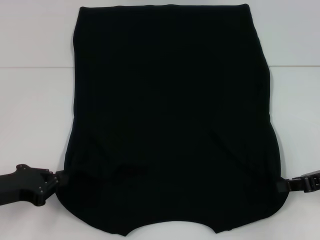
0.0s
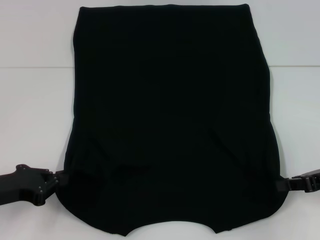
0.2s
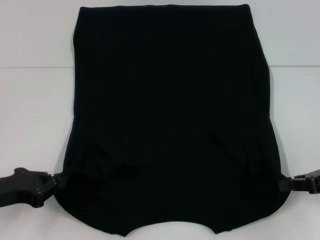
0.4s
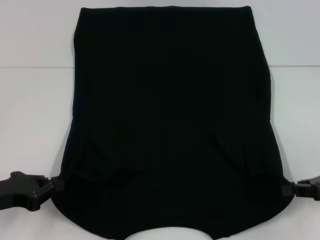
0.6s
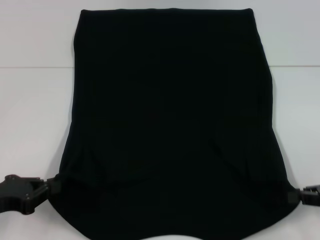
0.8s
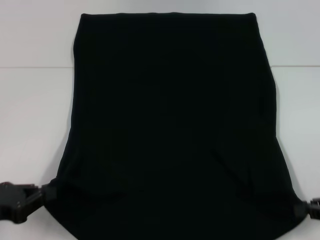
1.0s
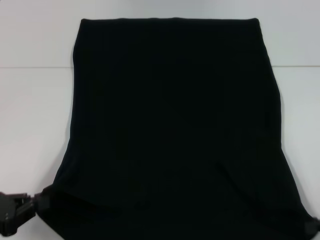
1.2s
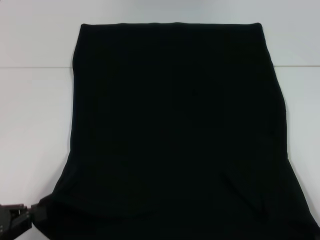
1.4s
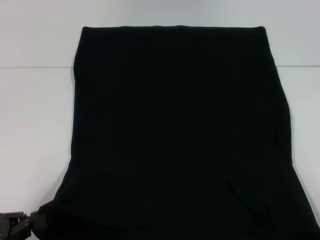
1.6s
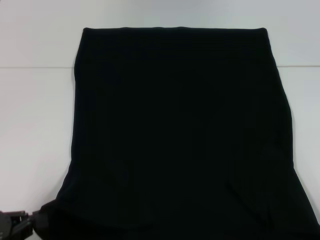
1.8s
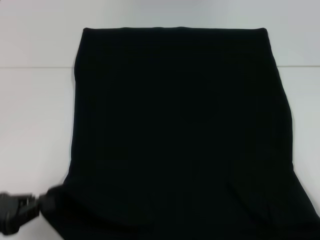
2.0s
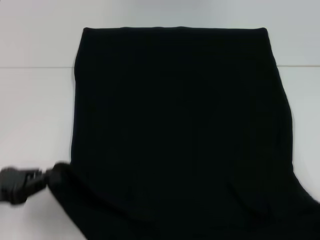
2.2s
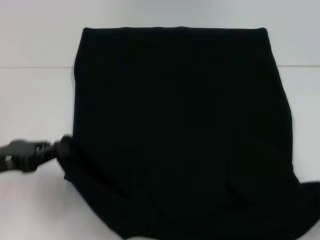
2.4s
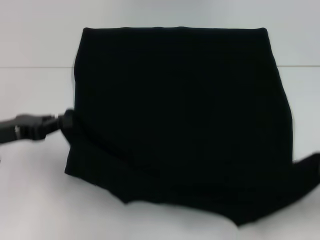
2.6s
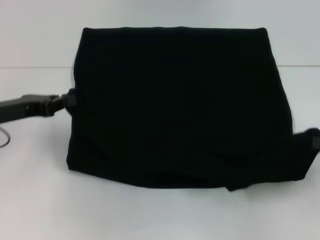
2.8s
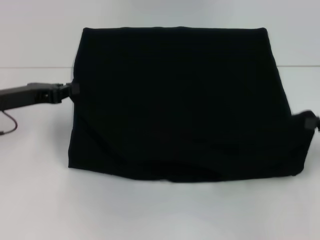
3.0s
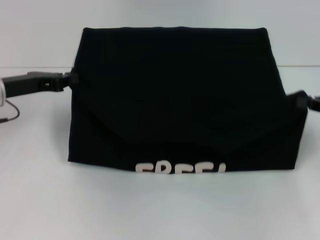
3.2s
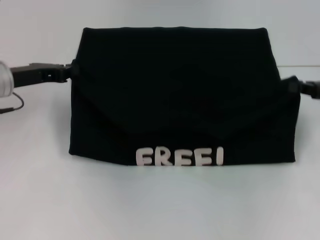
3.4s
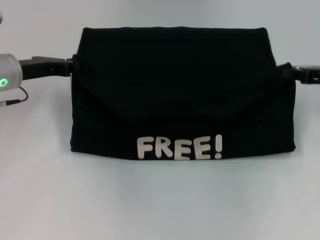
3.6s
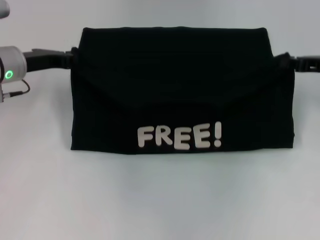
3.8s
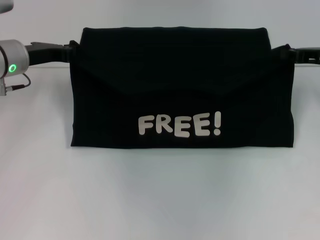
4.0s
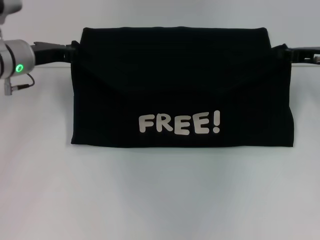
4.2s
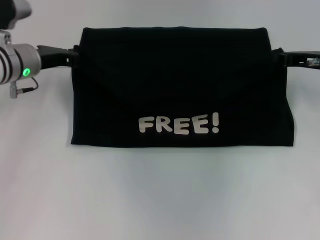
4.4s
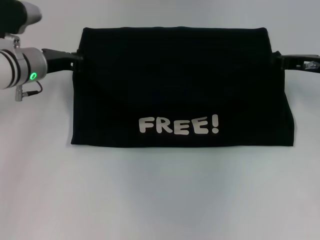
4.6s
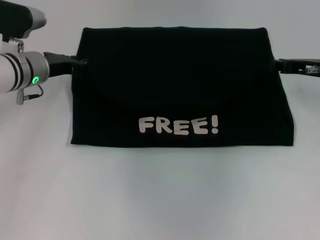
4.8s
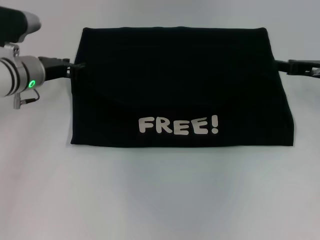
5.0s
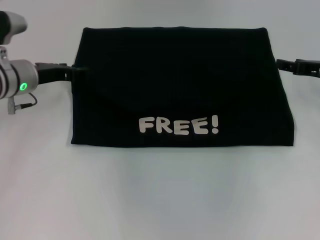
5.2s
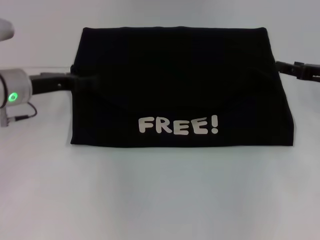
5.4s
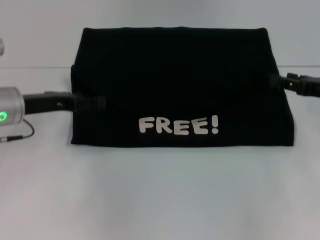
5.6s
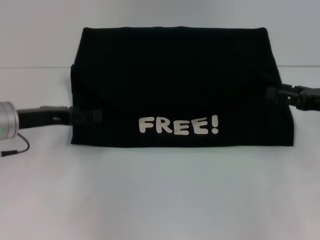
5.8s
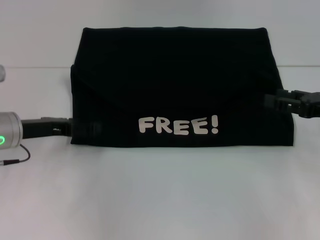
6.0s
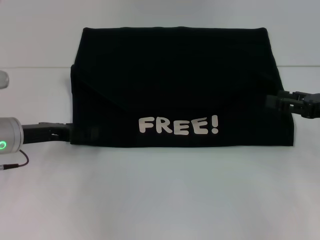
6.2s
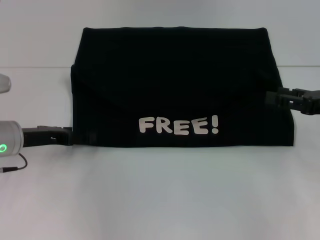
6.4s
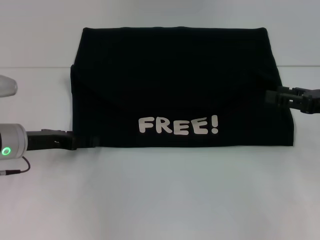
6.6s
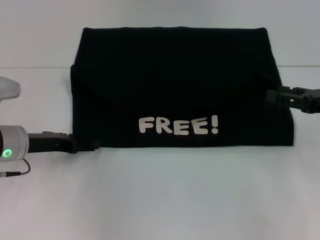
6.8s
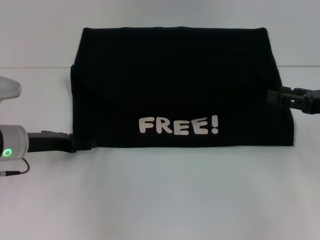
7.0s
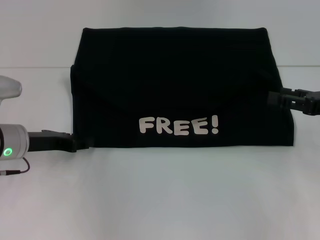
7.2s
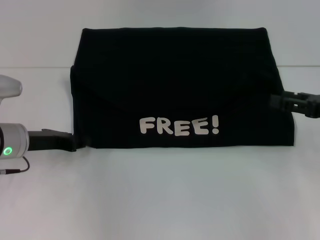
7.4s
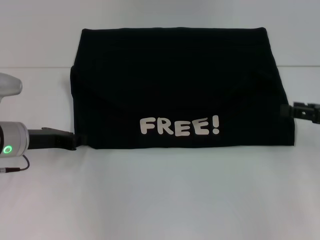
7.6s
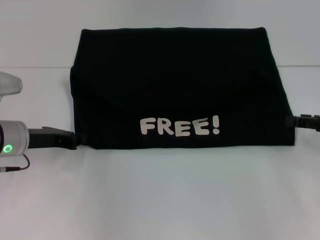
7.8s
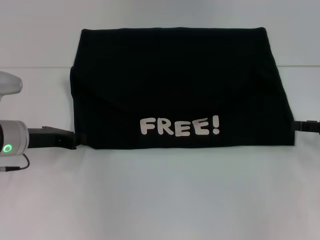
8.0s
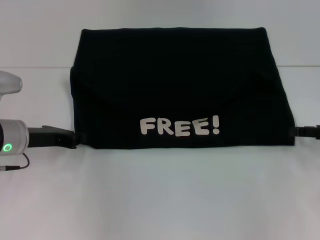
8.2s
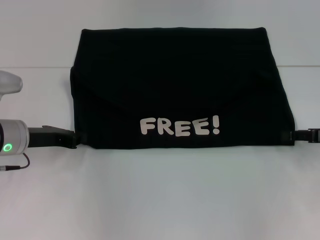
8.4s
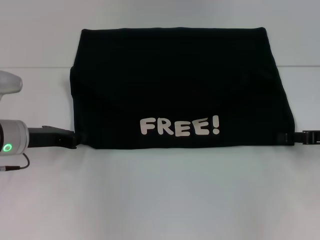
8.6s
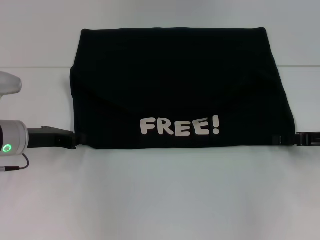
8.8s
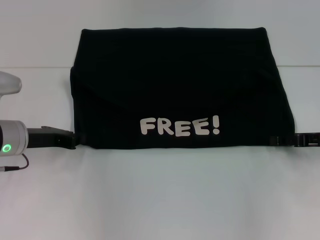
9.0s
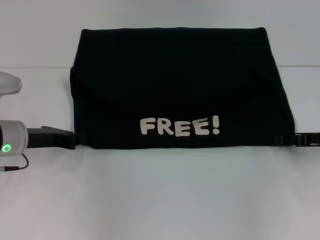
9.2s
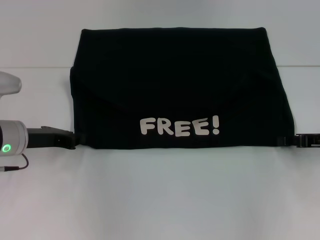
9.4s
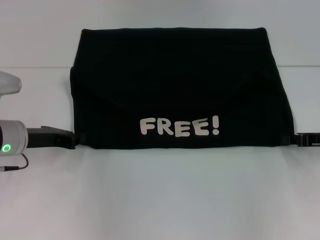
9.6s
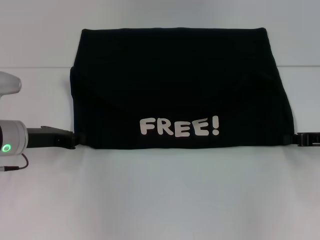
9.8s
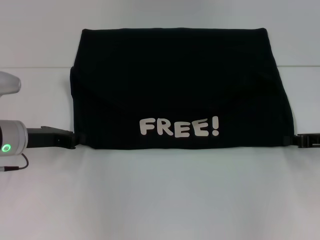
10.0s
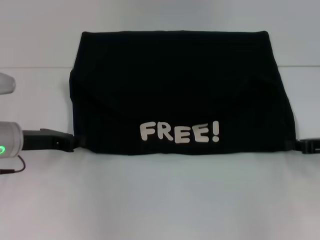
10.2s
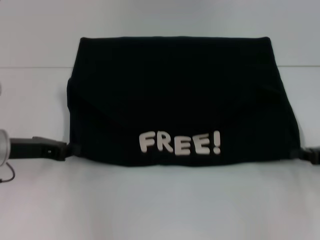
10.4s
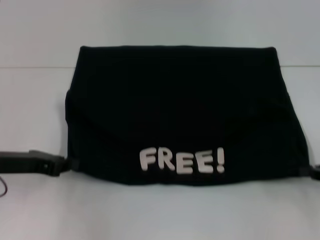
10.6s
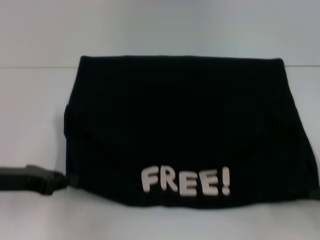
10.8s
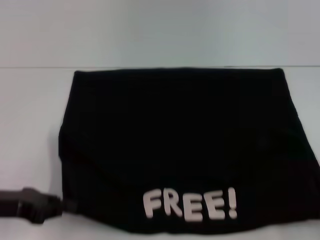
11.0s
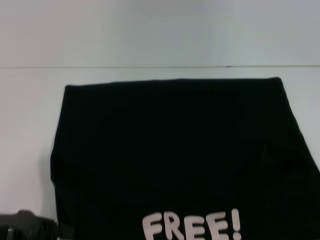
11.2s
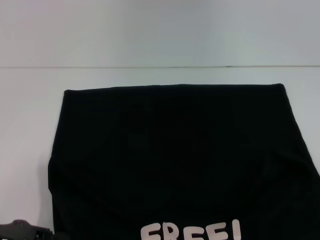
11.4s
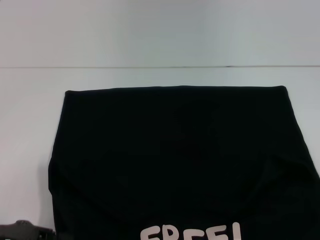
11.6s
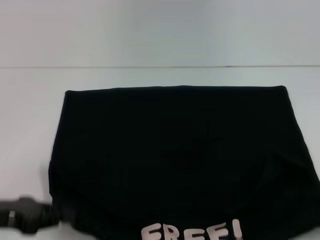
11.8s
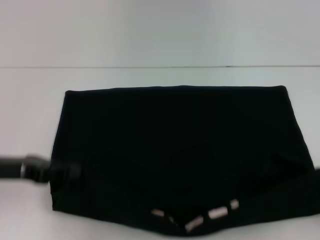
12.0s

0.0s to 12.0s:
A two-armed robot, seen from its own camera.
Step, 0.0s to 5.6s: Fold the clothes with your left hand.
Step, 0.0s to 5.6s: Fold the clothes with your right hand.
Step, 5.8s to 11.4s: Pull the clothes with your left hand.
Step, 5.8s to 11.4s: Pull the clothes with your right hand.
0.0s to 1.6s: The left gripper is displaced backward by about 10 cm; the right gripper travels backward and to the right by some 15 cm.
1.6s to 3.0s: The left gripper heads forward, covering roughly 20 cm; the right gripper moves forward and upward, some 15 cm.
3.0s to 4.4s: The right gripper goes approximately 15 cm forward and to the left. The left gripper moves forward and to the right, some 10 cm.
4.4s to 6.0s: Both grippers move backward, approximately 10 cm. The right gripper opens its fingers. The left gripper opens.
6.0s to 7.6s: The left gripper closes up.
7.6s to 9.0s: The grippers move only a little.
9.0s to 10.4s: The right gripper closes its fingers.
10.4s to 12.0s: The right gripper heads backward, covering some 10 cm.

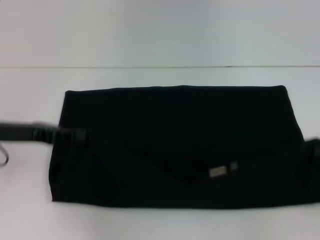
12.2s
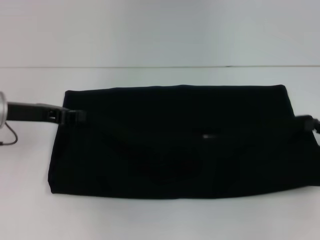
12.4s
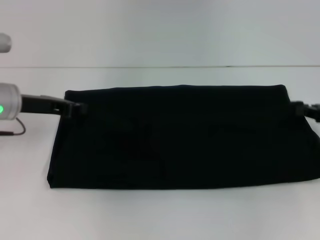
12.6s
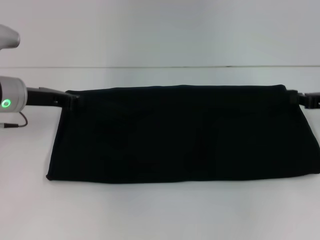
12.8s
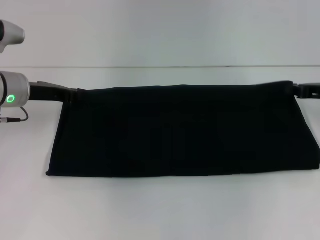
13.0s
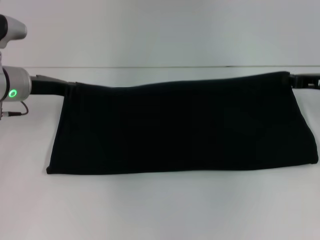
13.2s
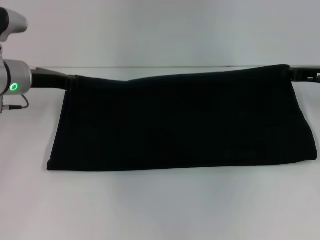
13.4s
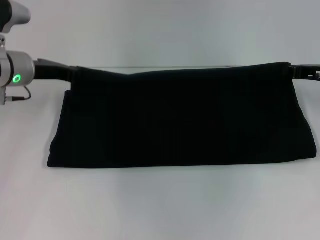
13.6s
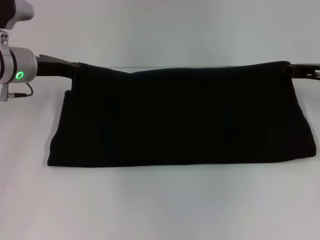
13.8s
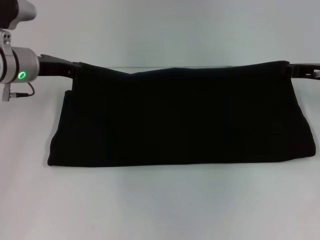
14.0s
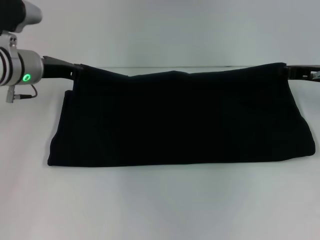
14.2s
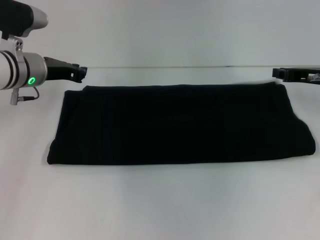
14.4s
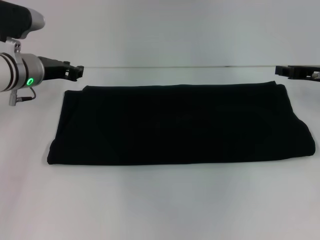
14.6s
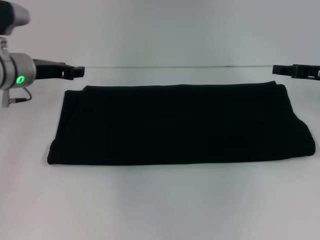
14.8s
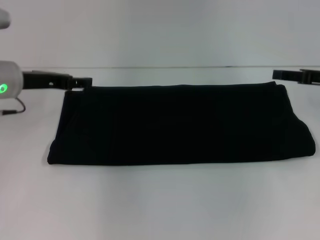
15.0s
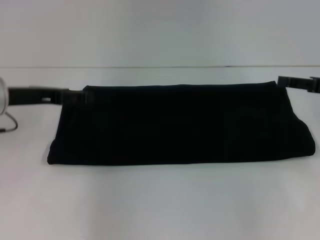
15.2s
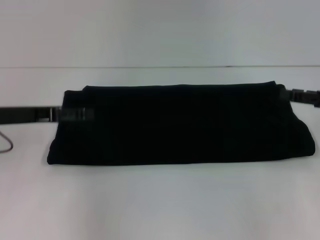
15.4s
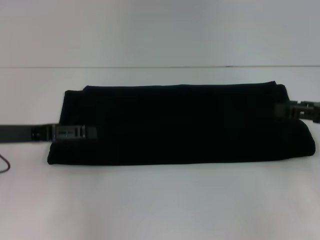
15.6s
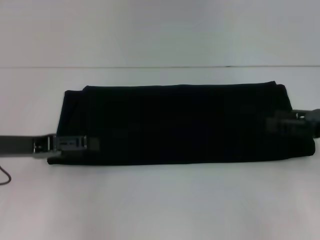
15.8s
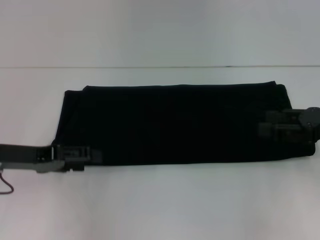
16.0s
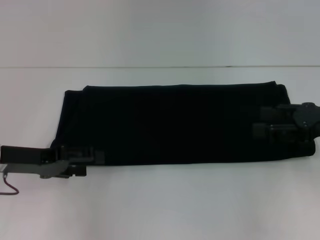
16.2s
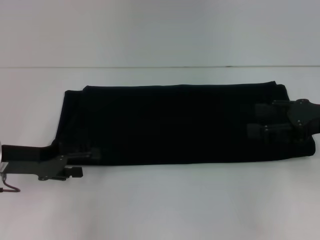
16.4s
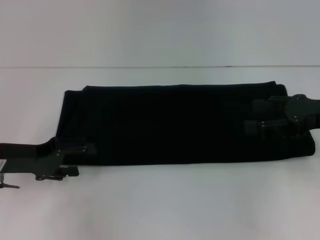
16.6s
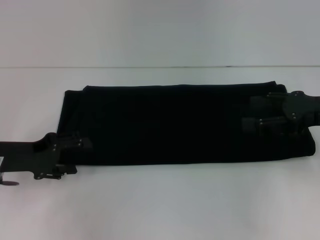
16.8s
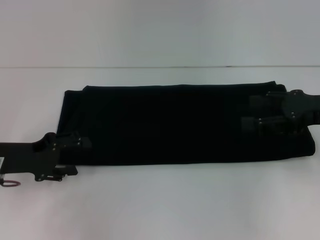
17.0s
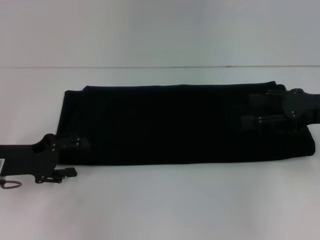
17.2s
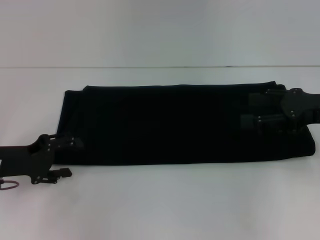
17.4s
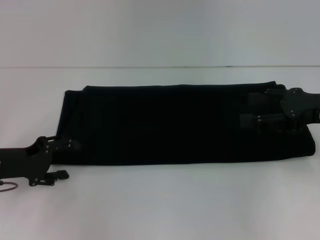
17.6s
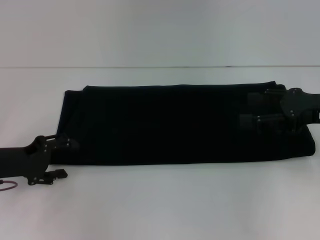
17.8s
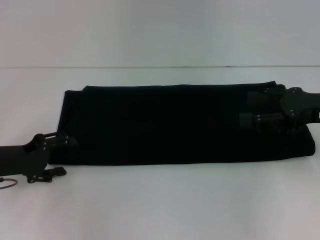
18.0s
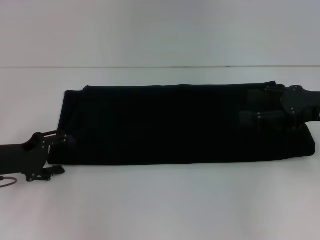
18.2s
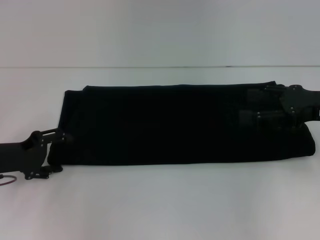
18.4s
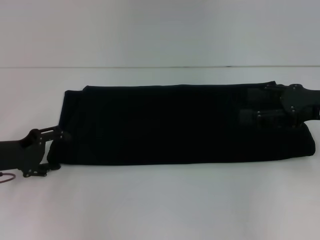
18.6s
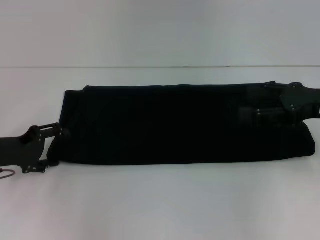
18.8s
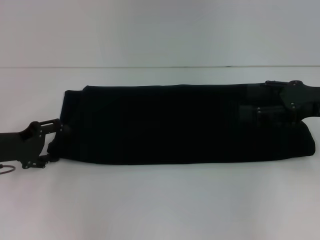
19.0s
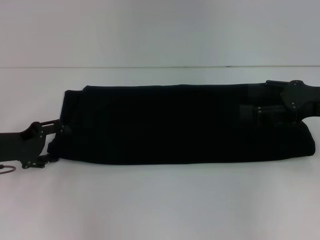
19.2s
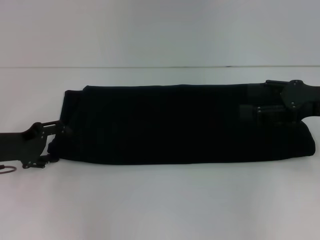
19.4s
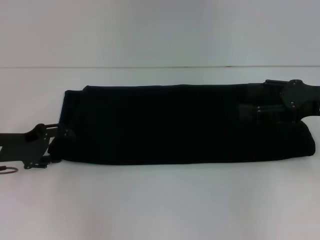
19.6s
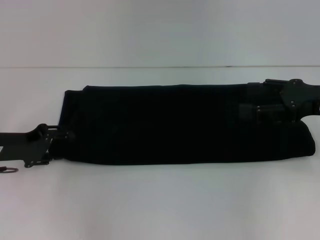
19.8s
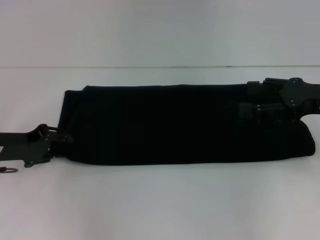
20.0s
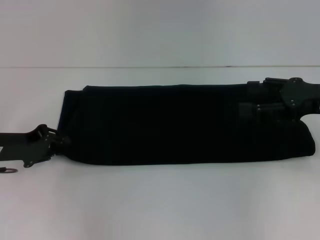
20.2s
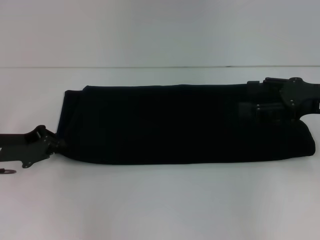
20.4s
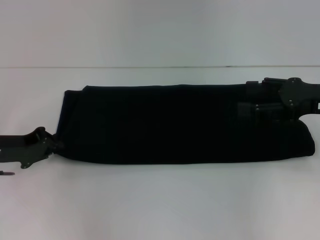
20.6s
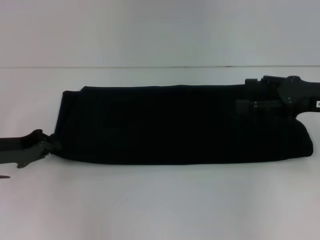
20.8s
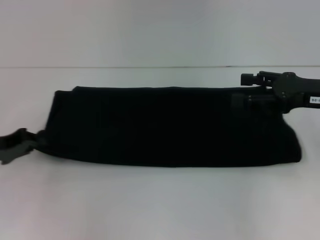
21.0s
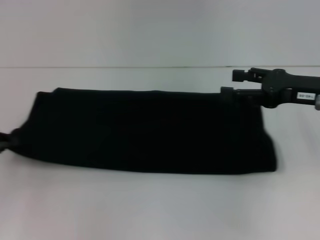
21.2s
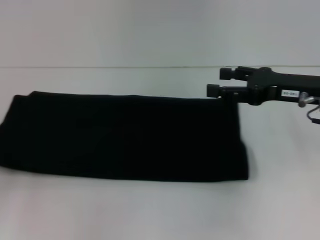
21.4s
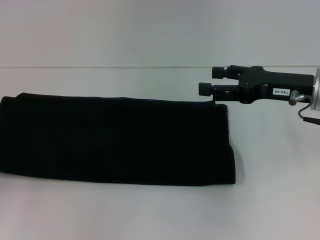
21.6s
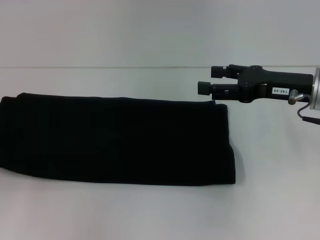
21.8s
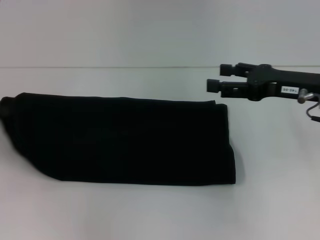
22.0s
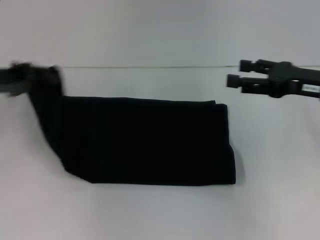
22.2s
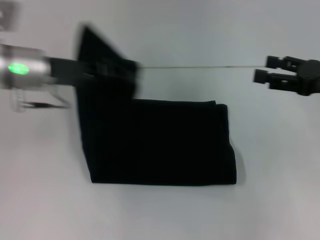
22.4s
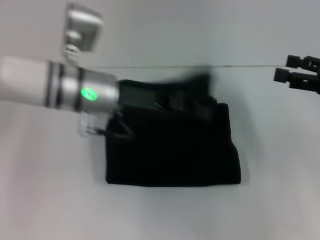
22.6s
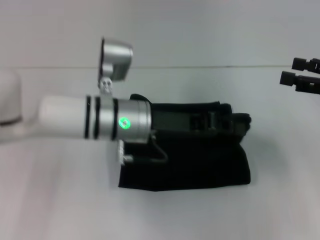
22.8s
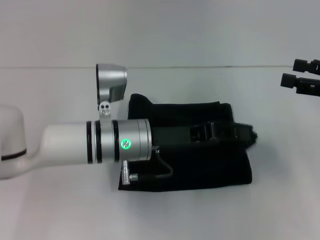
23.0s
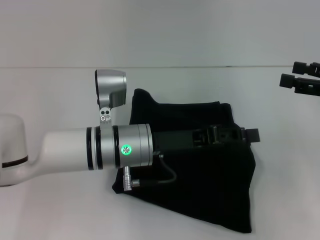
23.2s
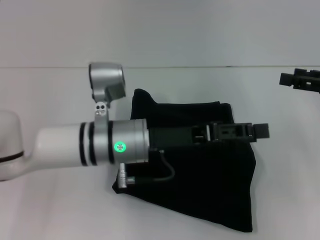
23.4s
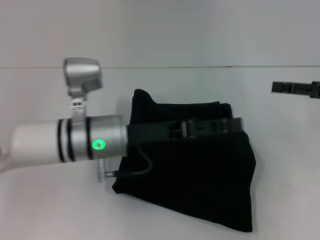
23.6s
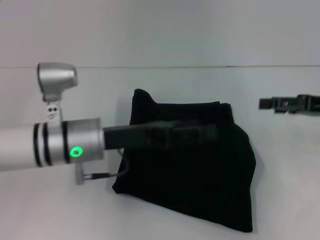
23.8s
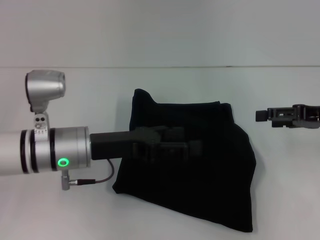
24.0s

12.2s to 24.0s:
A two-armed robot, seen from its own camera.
Step, 12.2s to 15.0s: Fold the clothes with your right hand.
Step, 12.2s to 23.2s: Fold the clothes with your left hand.
12.2s to 13.6s: The right gripper is displaced forward and to the left by roughly 15 cm. The left gripper goes approximately 10 cm forward.
13.6s to 15.2s: Both grippers travel together backward, roughly 5 cm. The right gripper opens its fingers. Meanwhile the left gripper opens up.
15.2s to 16.6s: The left gripper moves downward and backward, about 10 cm. Meanwhile the right gripper moves about 5 cm.
18.2s to 19.6s: The grippers stay close to where they were, moving slightly.
19.6s to 21.0s: The left gripper closes up.
21.0s to 22.6s: The right gripper goes about 5 cm to the right. The left gripper shifts some 20 cm to the right and upward.
22.6s to 24.0s: The left gripper travels downward and backward by roughly 10 cm, and opens.
